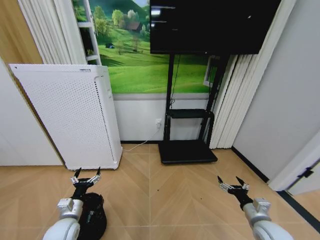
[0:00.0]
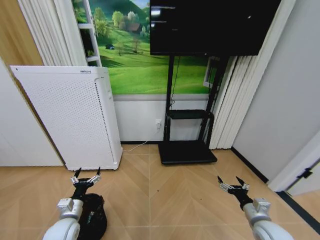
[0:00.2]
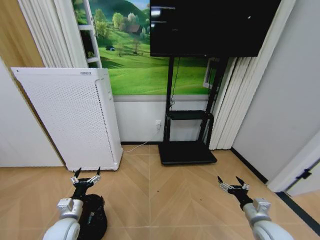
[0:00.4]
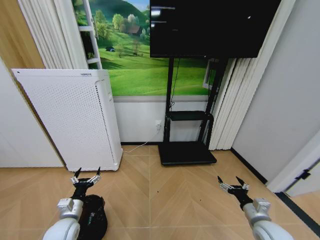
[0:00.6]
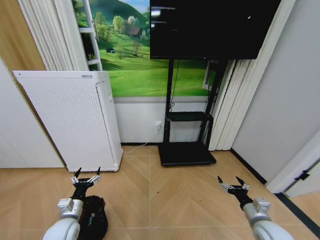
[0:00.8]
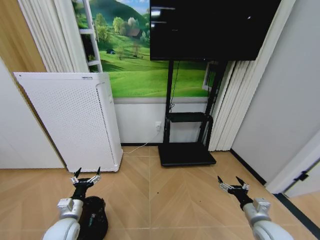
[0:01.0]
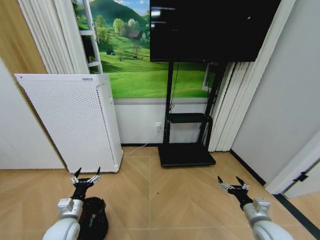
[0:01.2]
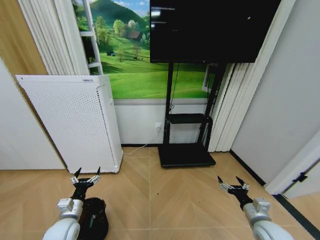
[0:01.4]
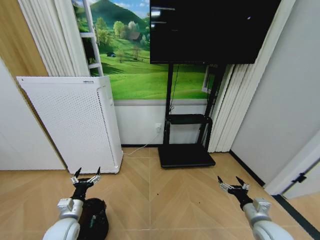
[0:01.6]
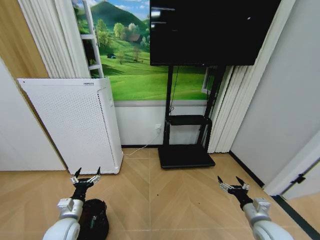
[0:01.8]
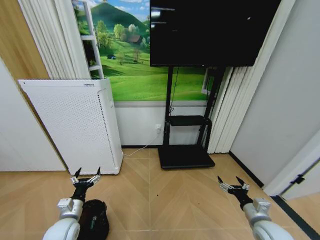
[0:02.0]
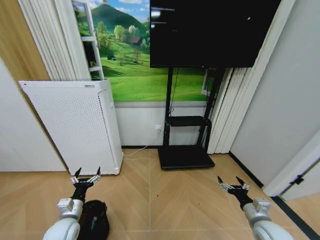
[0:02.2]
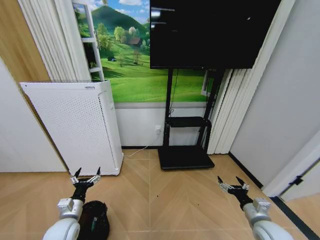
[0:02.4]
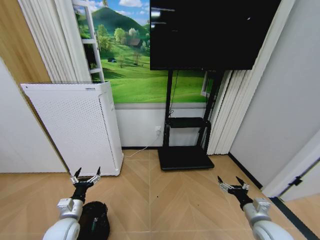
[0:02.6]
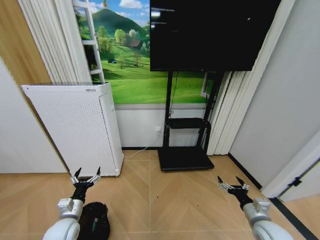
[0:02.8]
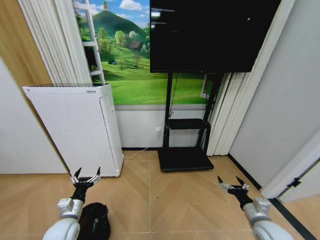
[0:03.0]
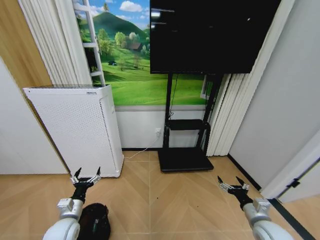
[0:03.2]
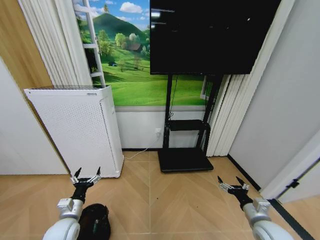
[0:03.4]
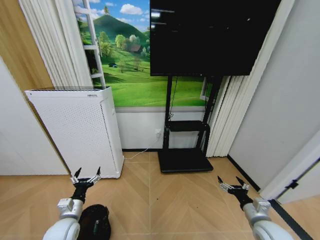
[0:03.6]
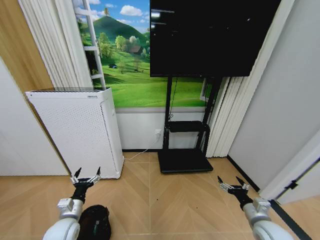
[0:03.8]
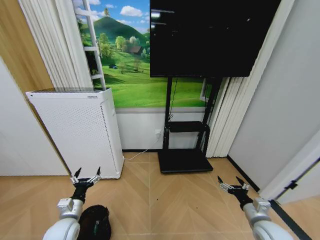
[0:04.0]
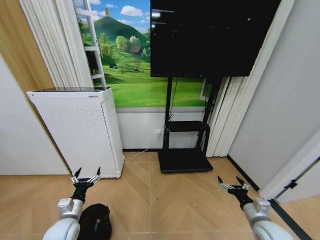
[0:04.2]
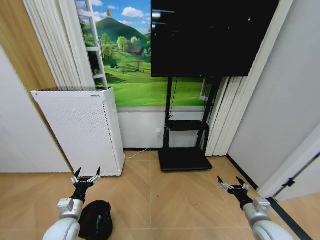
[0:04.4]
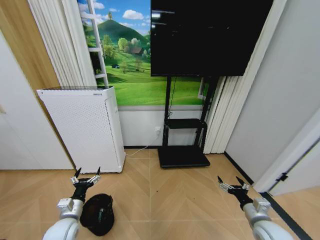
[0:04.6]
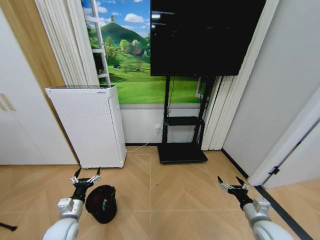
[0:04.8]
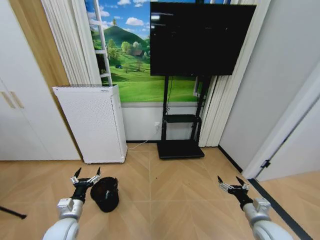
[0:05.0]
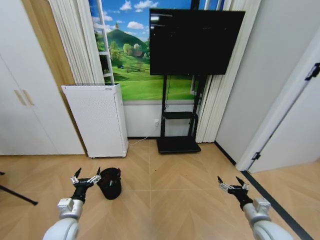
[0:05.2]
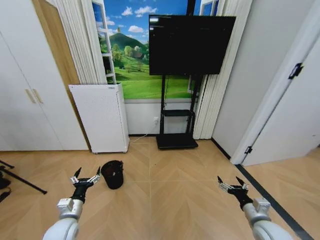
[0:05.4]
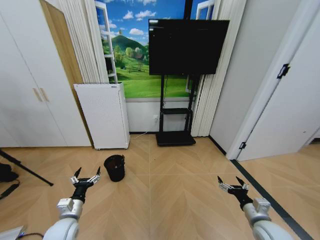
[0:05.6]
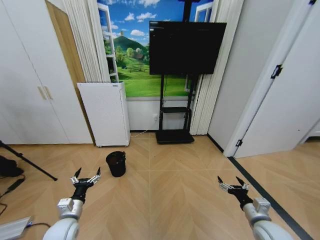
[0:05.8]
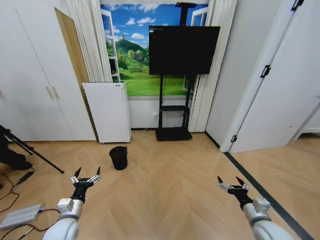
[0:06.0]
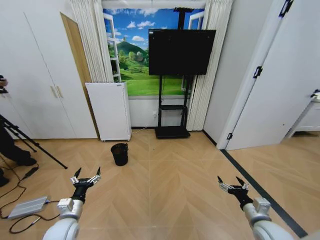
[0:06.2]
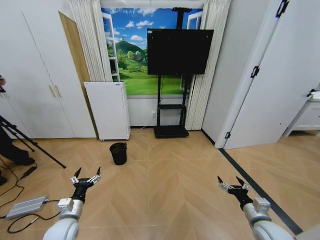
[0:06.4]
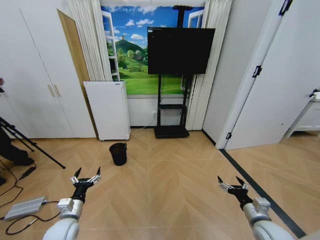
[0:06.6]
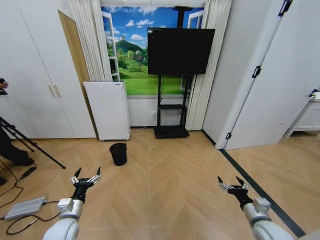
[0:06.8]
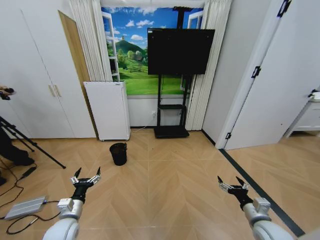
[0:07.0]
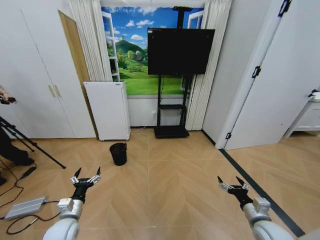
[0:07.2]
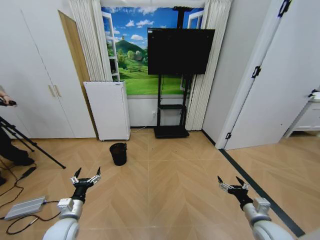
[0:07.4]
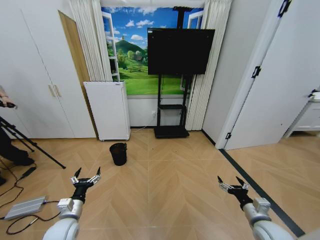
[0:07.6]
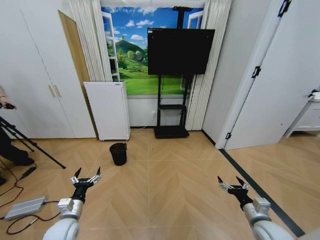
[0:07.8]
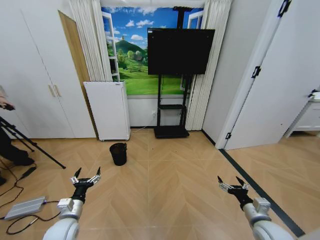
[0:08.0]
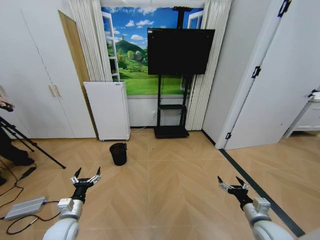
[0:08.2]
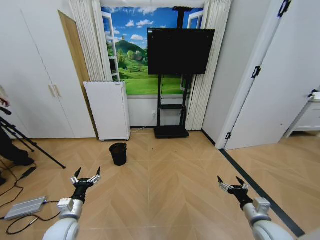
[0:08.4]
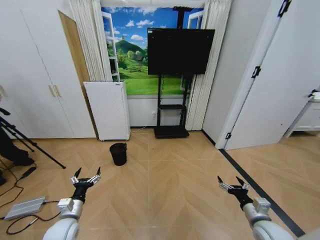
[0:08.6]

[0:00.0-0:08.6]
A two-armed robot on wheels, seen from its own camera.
Task of the whole recording: Pick up the trash bin and place the garbage on the floor into it.
0:00.0 to 0:04.4: Both grippers stay about where they are.
0:07.2 to 0:08.6: Both grippers stay put.
